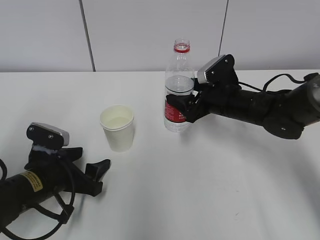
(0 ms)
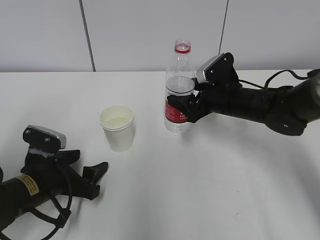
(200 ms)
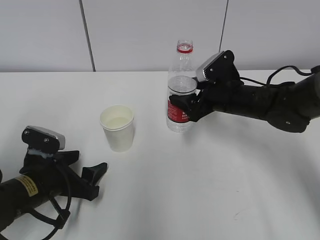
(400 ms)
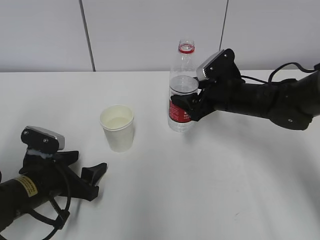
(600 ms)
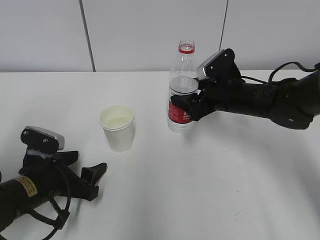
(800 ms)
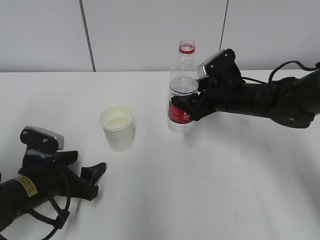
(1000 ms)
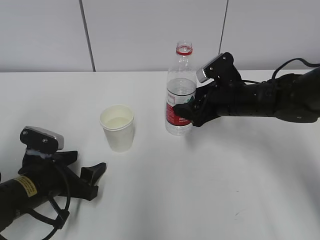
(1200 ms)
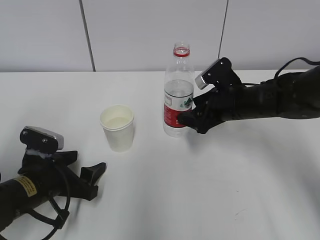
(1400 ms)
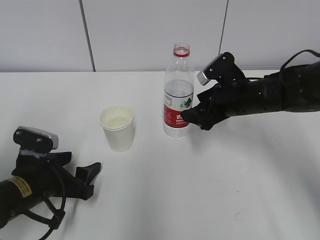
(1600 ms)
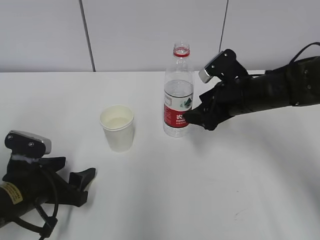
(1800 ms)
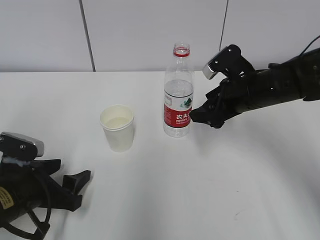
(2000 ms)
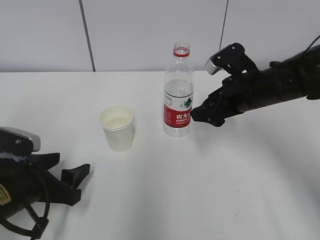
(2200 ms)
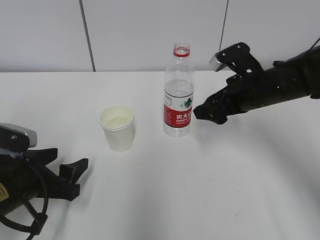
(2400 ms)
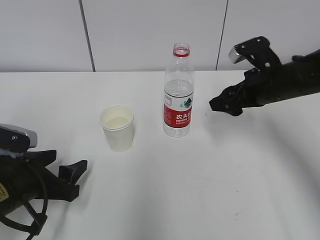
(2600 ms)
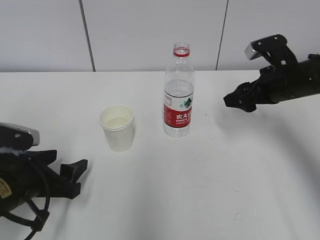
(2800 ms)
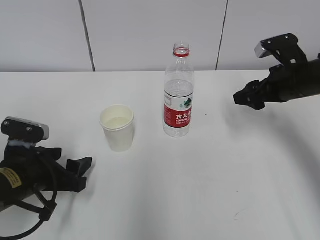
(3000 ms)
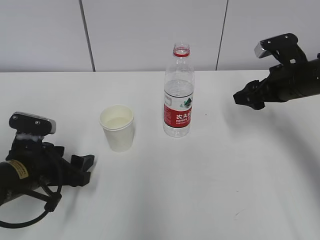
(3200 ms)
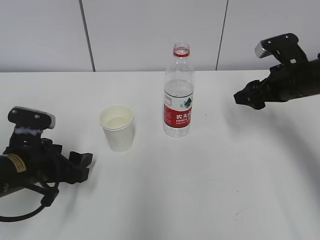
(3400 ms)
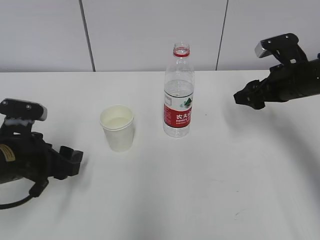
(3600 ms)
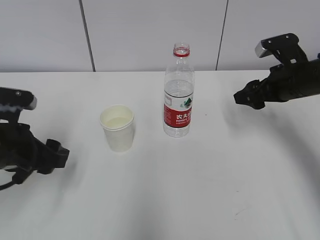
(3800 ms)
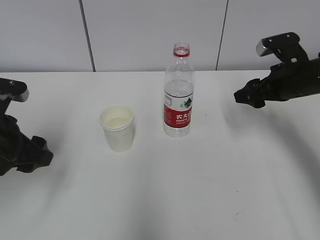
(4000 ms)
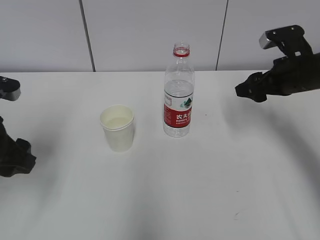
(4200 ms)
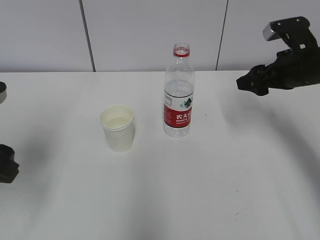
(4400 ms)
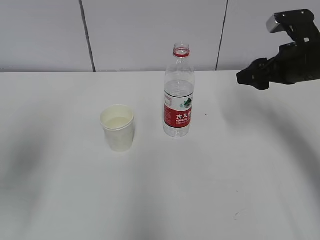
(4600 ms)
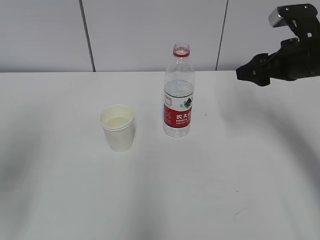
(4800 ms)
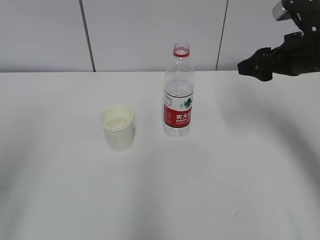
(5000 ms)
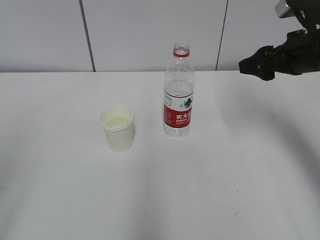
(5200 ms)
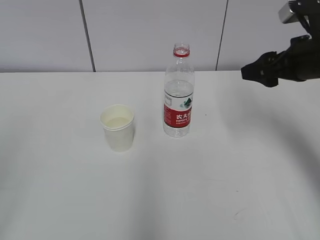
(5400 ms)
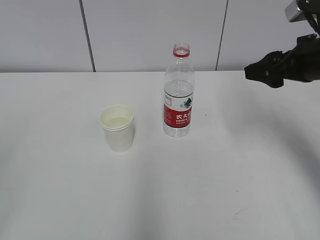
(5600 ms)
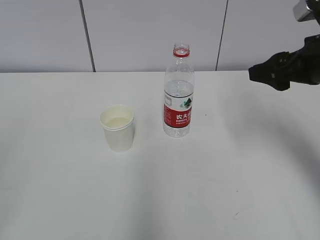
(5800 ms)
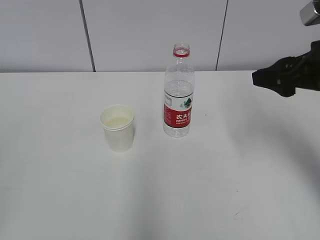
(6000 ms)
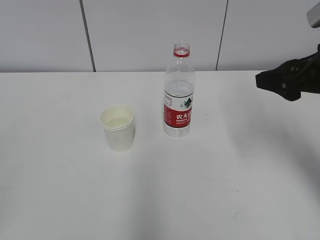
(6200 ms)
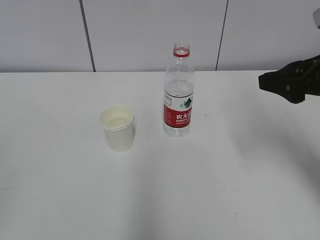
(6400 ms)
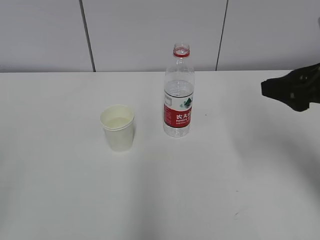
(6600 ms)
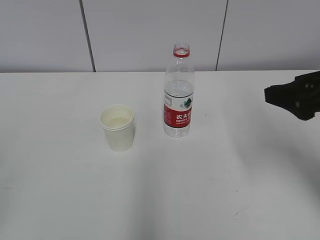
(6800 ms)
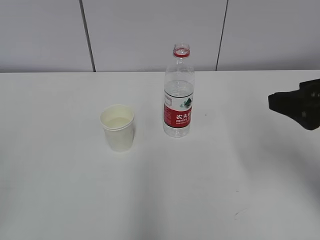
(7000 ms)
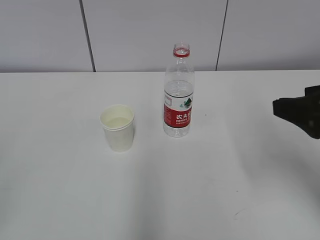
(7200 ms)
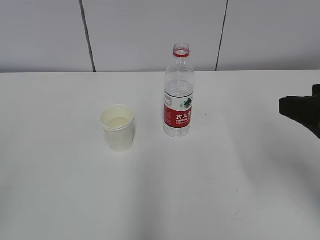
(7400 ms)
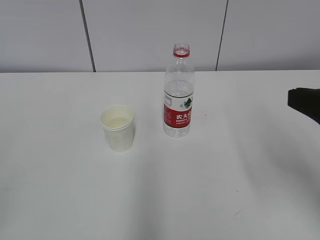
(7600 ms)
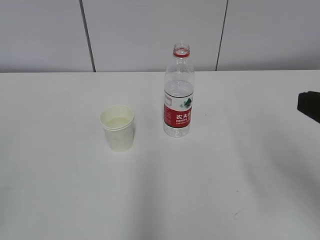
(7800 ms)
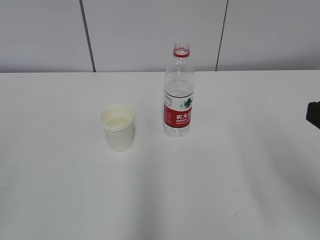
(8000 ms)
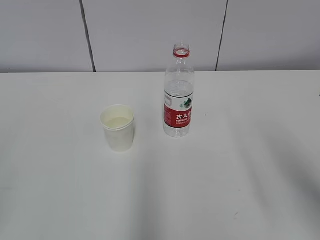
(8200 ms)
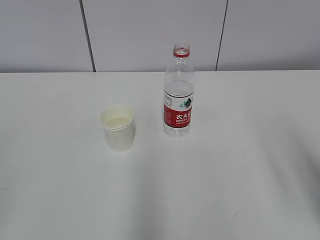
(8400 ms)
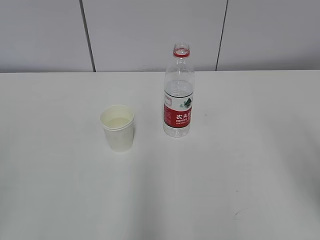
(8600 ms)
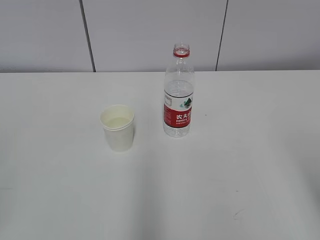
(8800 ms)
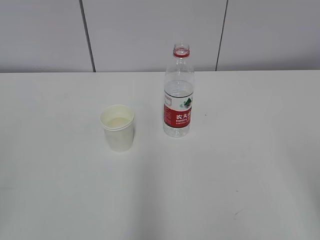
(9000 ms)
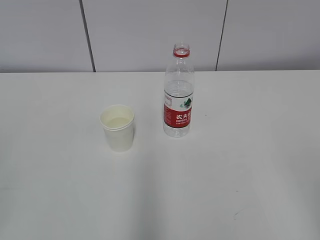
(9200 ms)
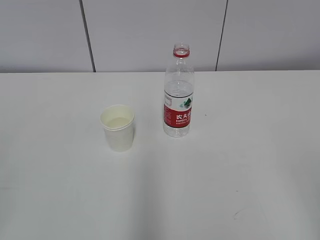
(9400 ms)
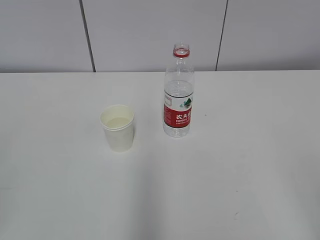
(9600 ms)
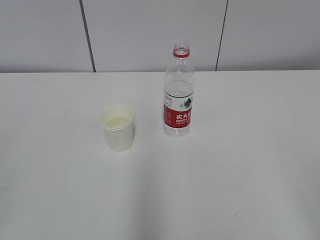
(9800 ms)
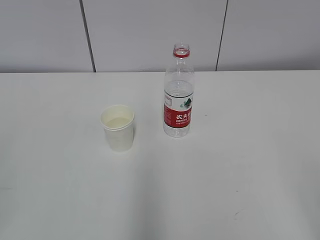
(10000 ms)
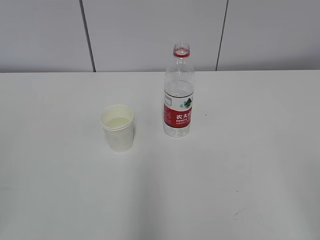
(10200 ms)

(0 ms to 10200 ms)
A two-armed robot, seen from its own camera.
0 ms - 1400 ms: The grippers make only small movements.
1400 ms - 3000 ms: The right gripper is displaced to the right by roughly 10 cm.
3000 ms - 4400 ms: The left gripper is displaced upward by roughly 15 cm.
4400 ms - 5800 ms: The right gripper goes approximately 5 cm backward, while the left gripper heads backward, covering about 20 cm.
5800 ms - 7200 ms: The right gripper travels backward by roughly 10 cm.
7200 ms - 8800 ms: The right gripper goes approximately 15 cm backward.

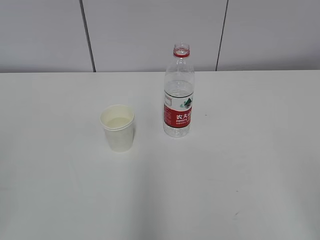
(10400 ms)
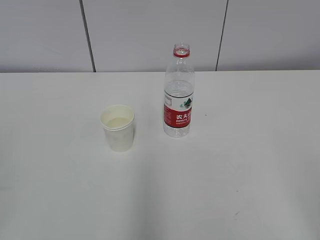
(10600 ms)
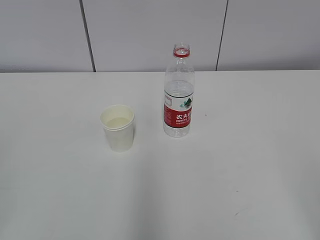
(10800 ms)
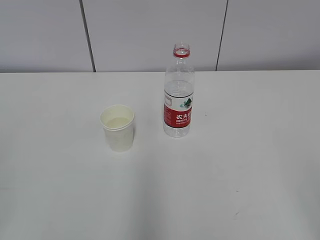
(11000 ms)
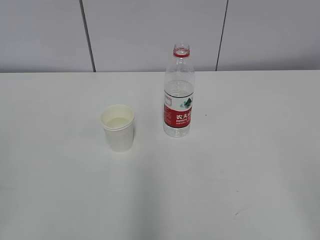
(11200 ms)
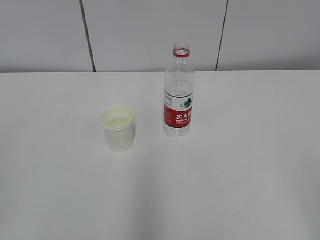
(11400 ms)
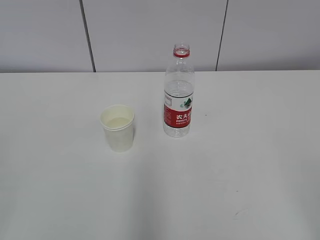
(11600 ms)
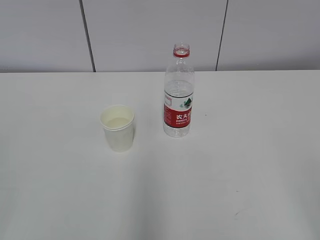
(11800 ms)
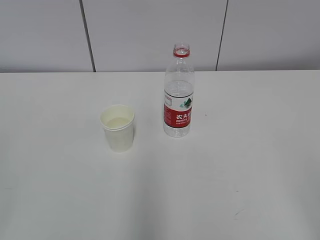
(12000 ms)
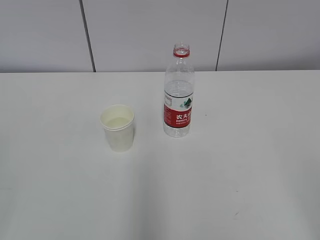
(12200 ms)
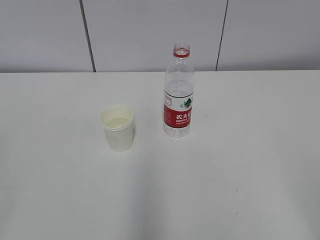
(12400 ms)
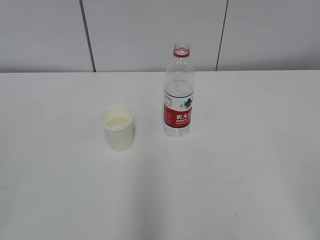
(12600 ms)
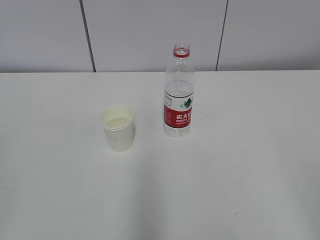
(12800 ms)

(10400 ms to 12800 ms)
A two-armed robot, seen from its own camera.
11600 ms - 12800 ms: Both grippers stay about where they are.
